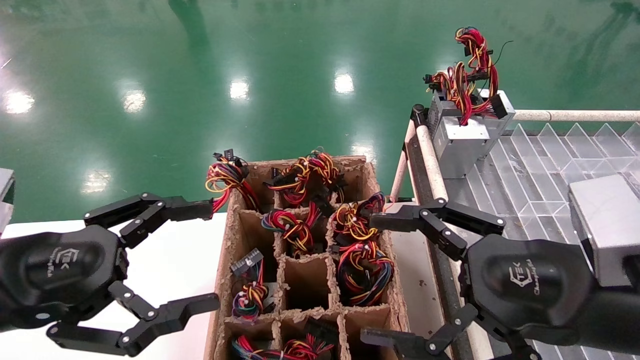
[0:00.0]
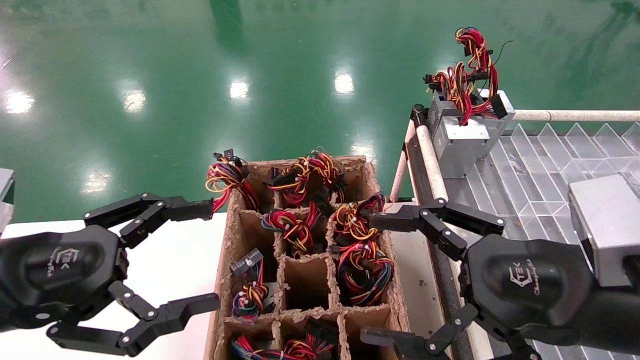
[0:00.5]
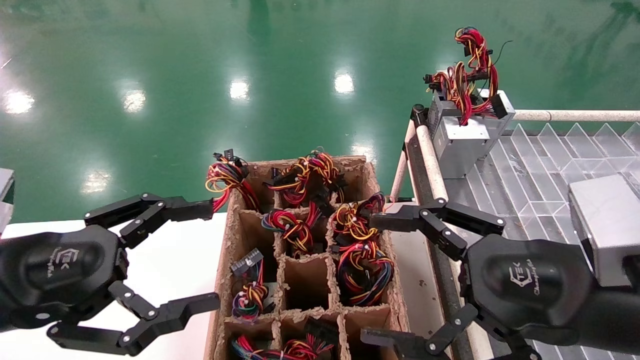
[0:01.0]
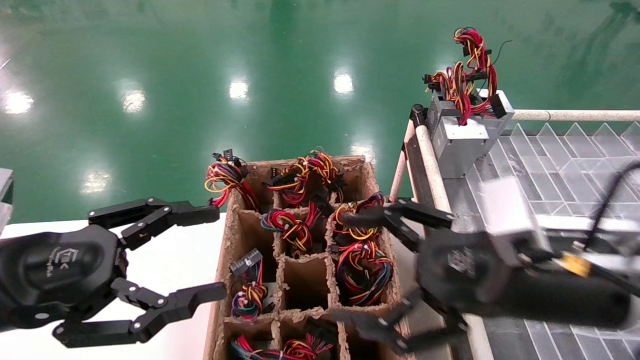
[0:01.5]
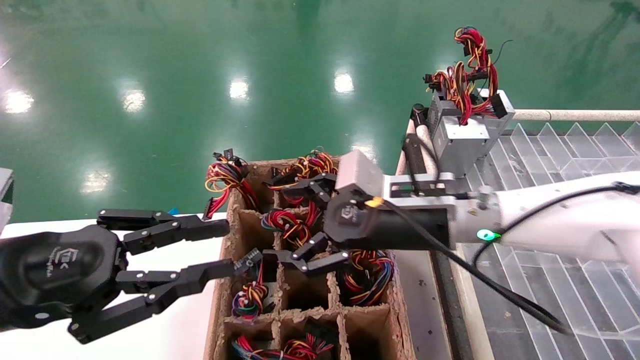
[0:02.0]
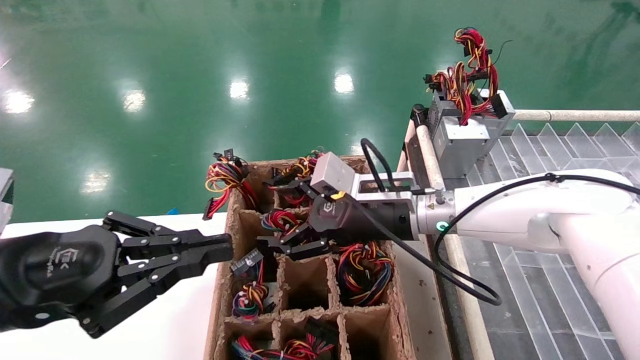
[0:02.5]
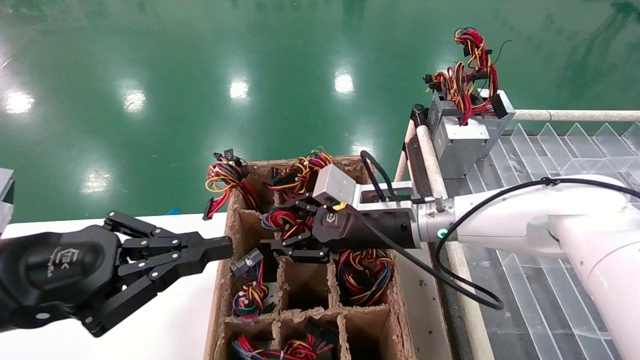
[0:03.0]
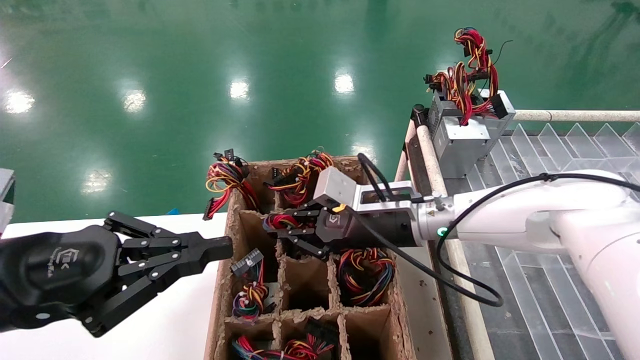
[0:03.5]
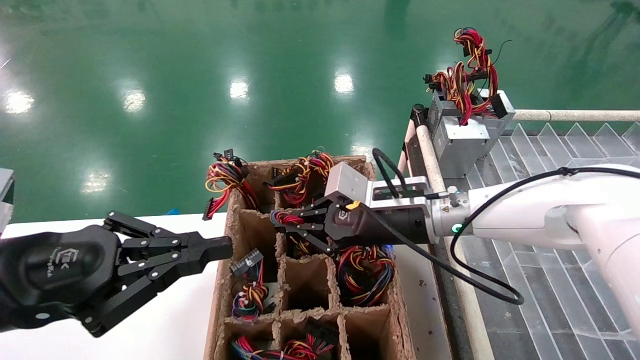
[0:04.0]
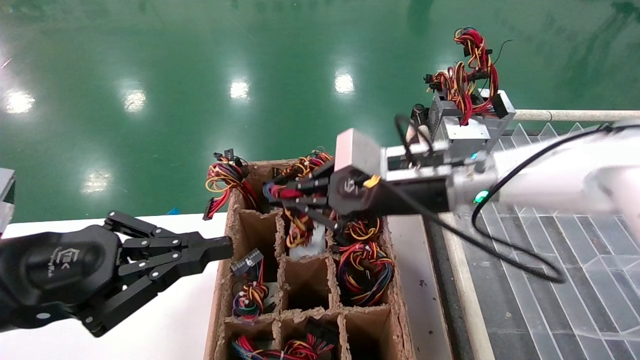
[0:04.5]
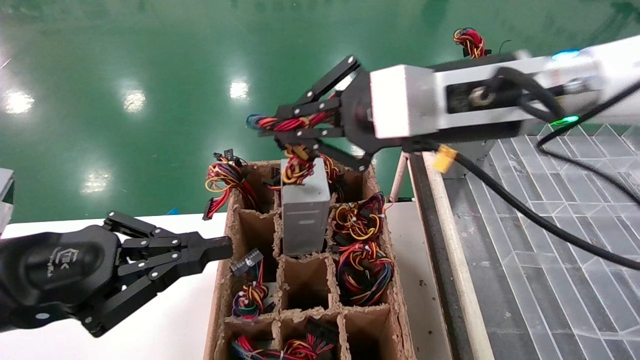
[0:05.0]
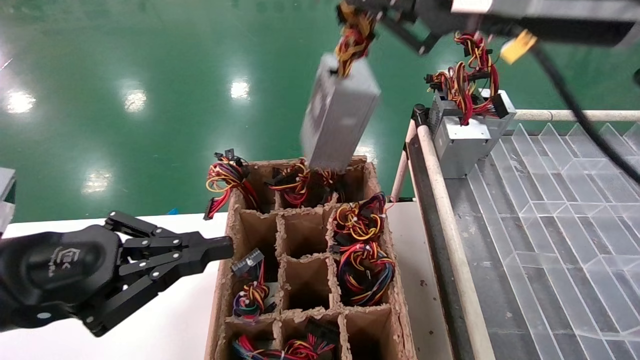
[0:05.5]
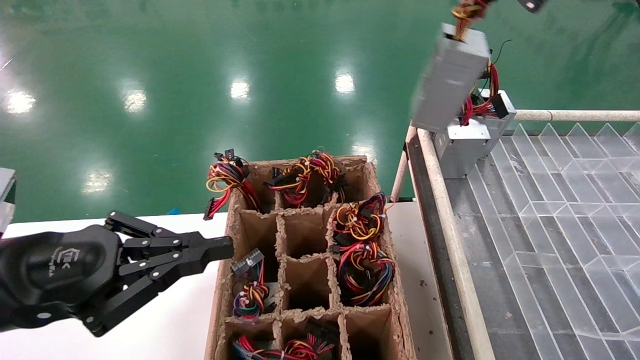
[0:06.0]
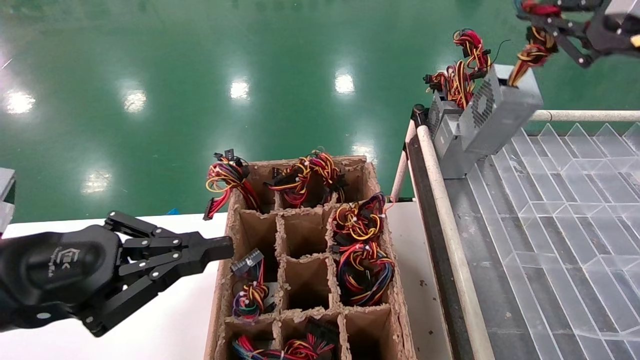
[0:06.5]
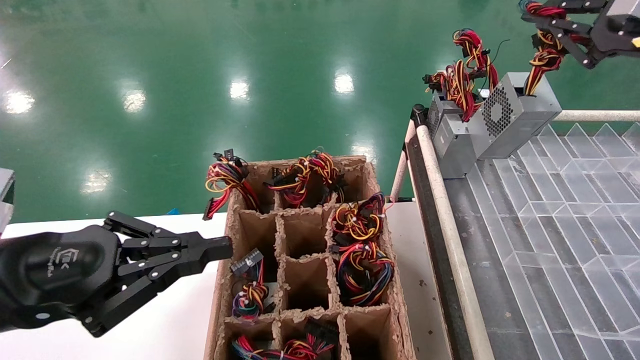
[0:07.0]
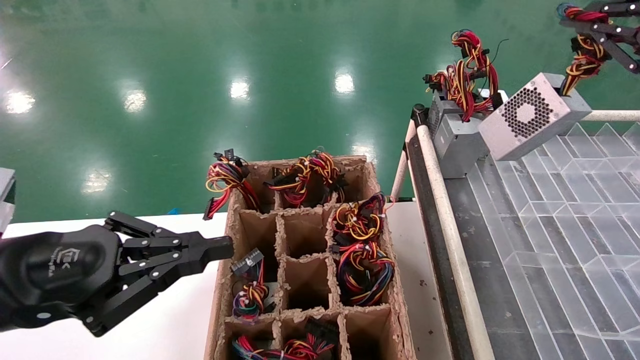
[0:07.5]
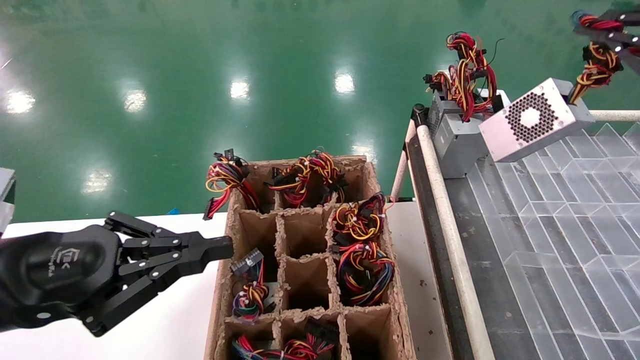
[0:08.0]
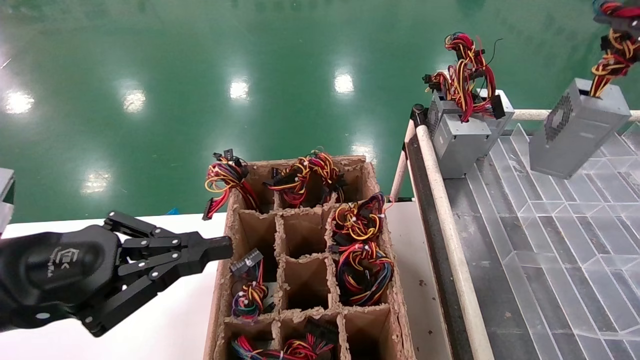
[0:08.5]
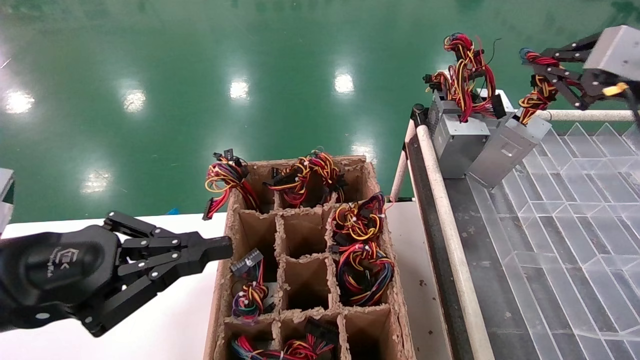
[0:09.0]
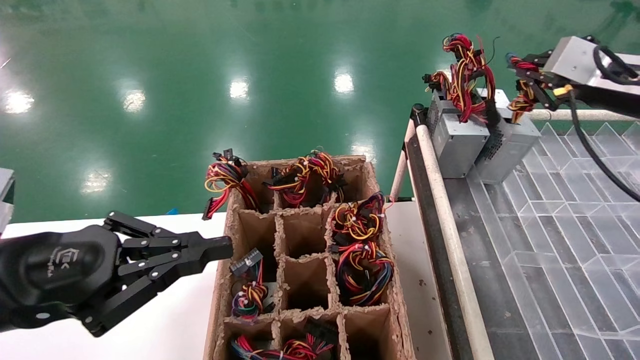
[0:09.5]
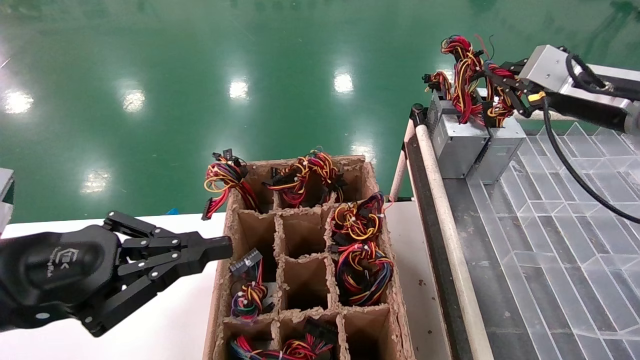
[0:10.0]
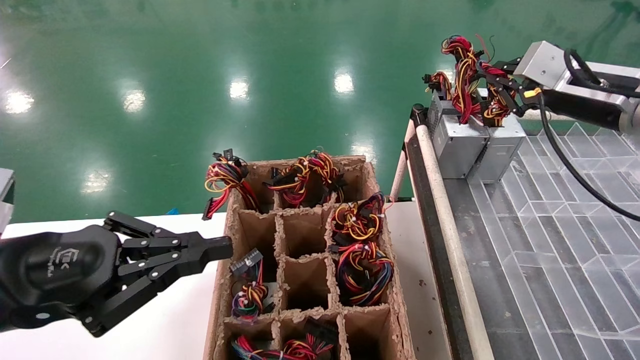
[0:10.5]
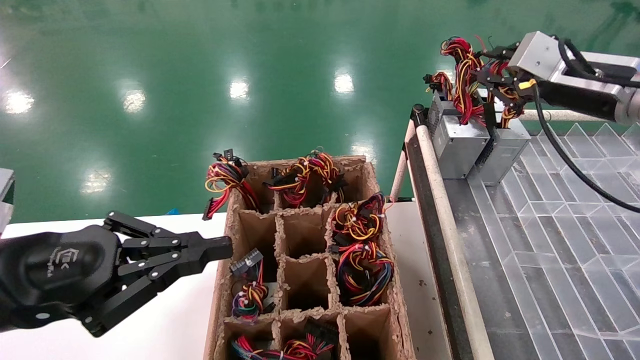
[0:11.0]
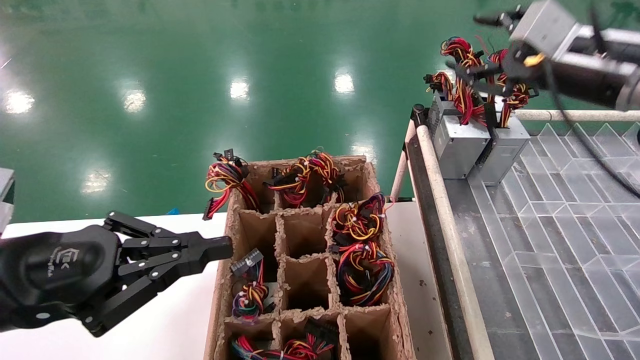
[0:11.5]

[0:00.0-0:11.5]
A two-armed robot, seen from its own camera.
Step, 0:02.0 to 0:04.0: Grab the main unit power supply from the containment box.
0:00.0 to 0:02.0: The right gripper heads forward and to the left, covering some 20 cm, while the left gripper closes its fingers.
0:02.0 to 0:04.0: The right gripper shifts by roughly 5 cm, and closes up. Meanwhile the left gripper closes its fingers.
0:04.0 to 0:06.0: The right gripper shifts about 35 cm upward, to the right and backward.
0:06.0 to 0:07.5: The right gripper travels to the right by approximately 15 cm.
0:07.5 to 0:09.5: The right gripper moves forward, some 10 cm.
0:09.5 to 0:11.5: The right gripper is displaced to the left by some 5 cm, and opens up.

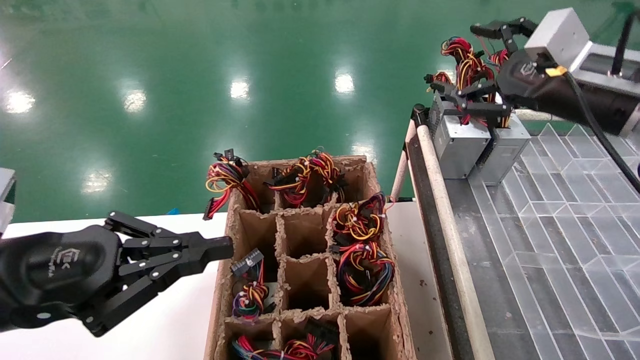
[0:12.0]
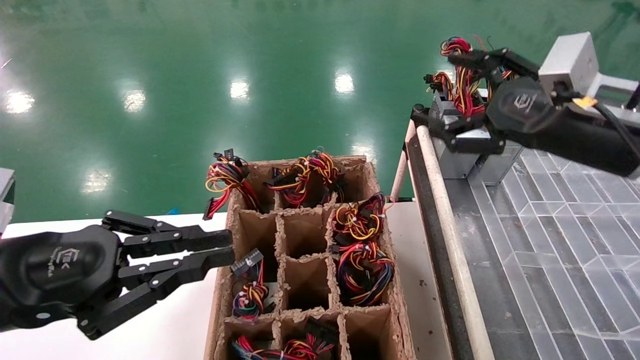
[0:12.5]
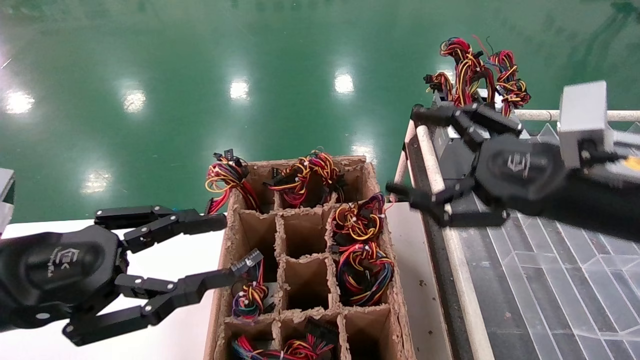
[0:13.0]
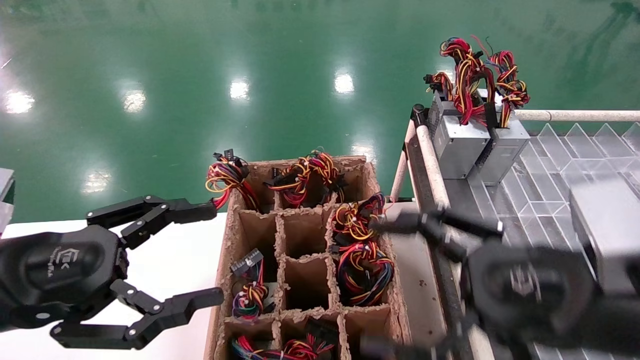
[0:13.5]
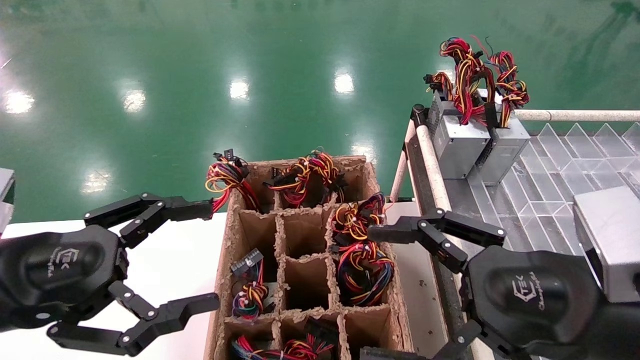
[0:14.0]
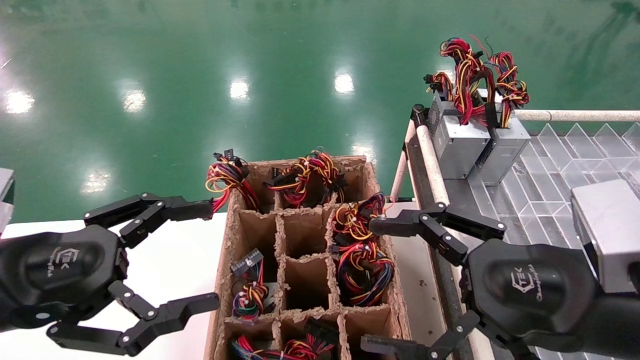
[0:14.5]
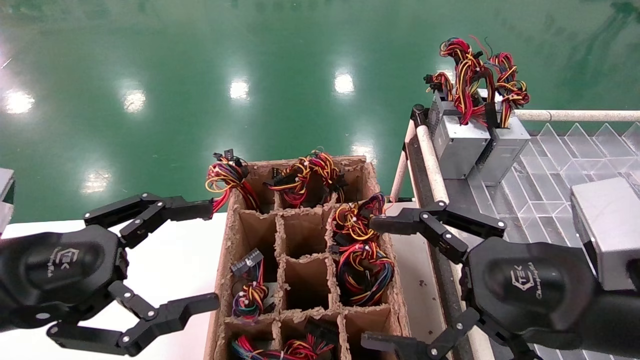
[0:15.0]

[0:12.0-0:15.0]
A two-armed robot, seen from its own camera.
0:12.0 to 0:13.5: The left gripper opens. Meanwhile the right gripper goes about 20 cm backward, downward and to the left.
0:13.5 to 0:15.0: The grippers move only a little.
